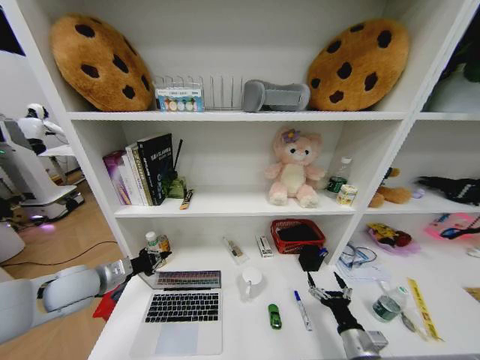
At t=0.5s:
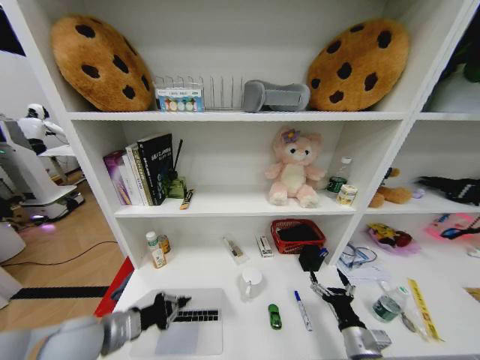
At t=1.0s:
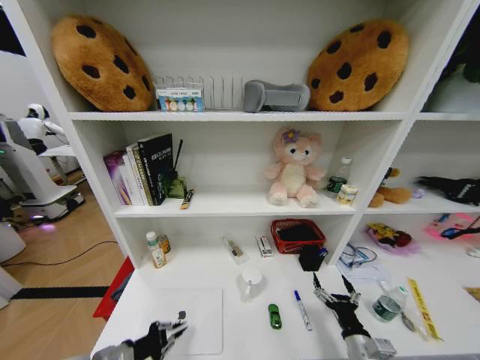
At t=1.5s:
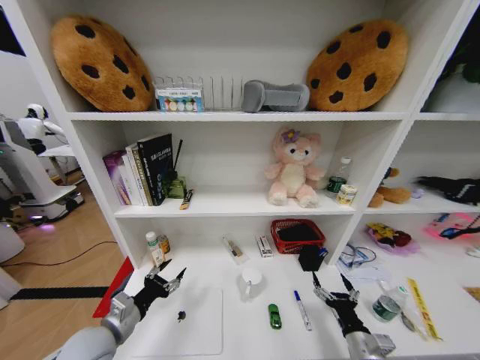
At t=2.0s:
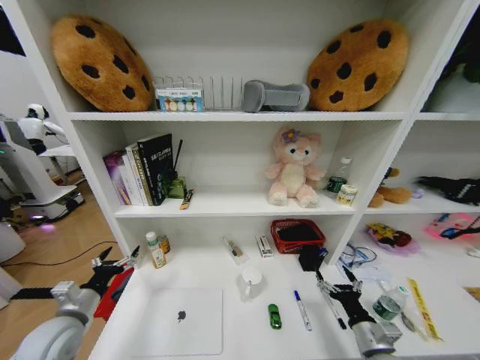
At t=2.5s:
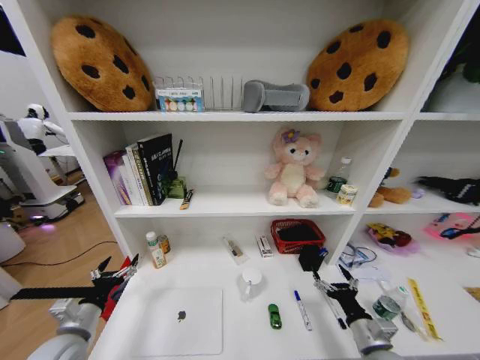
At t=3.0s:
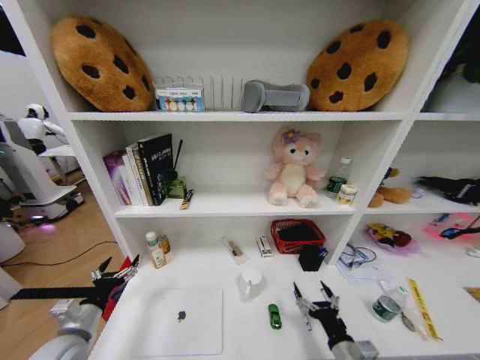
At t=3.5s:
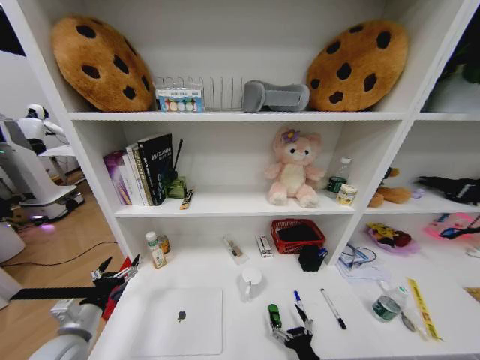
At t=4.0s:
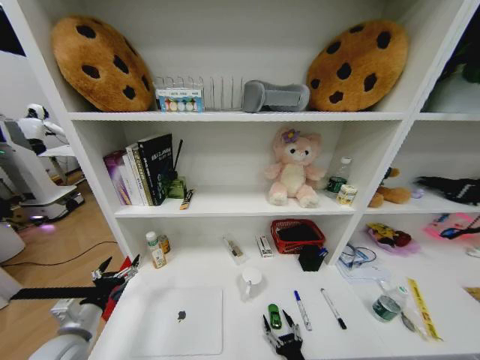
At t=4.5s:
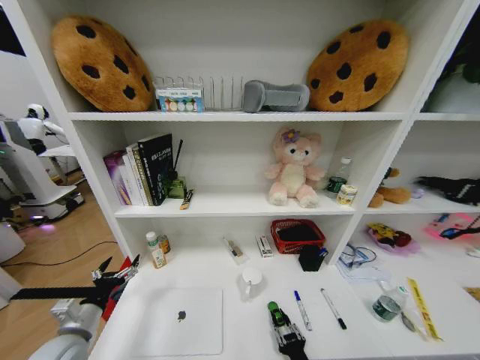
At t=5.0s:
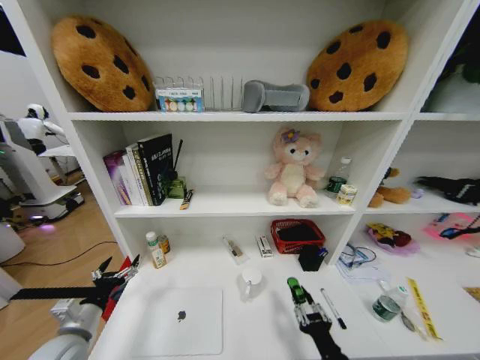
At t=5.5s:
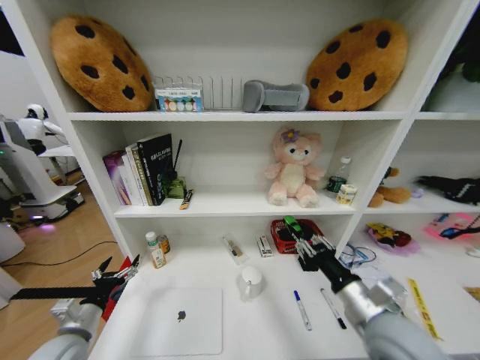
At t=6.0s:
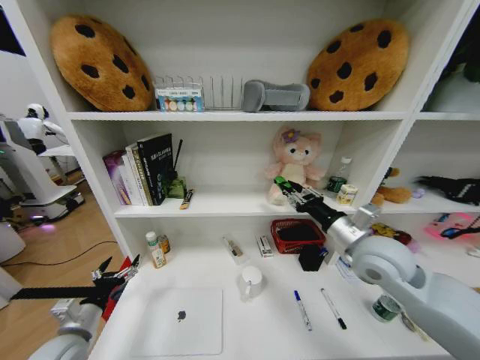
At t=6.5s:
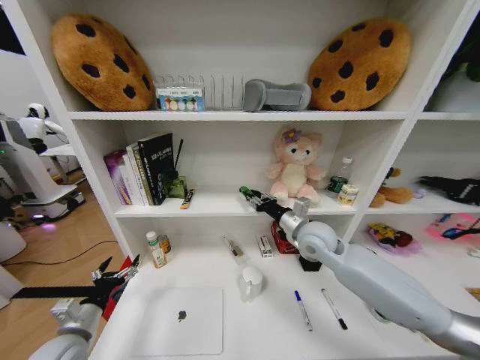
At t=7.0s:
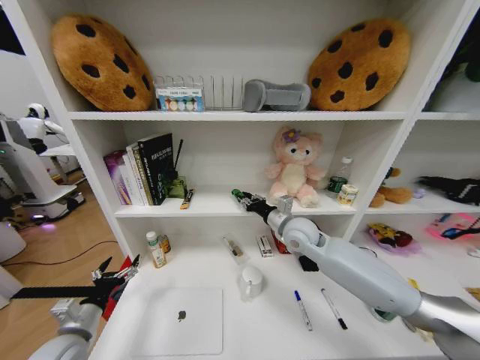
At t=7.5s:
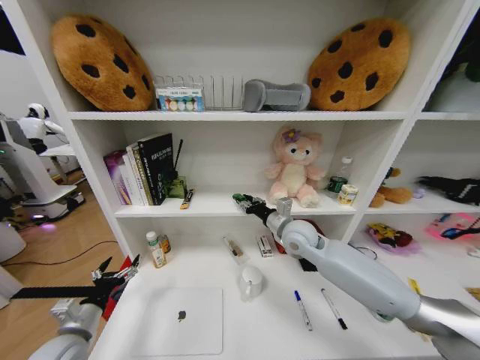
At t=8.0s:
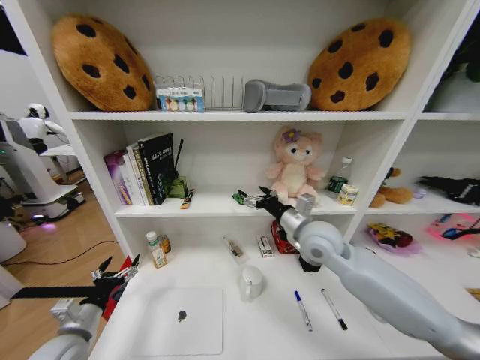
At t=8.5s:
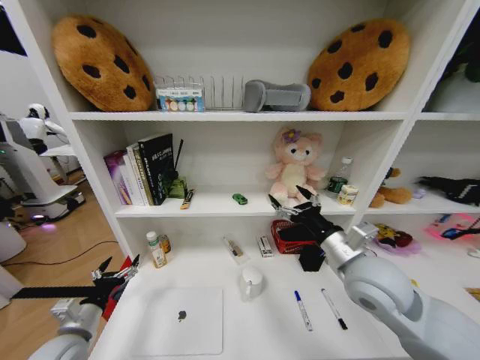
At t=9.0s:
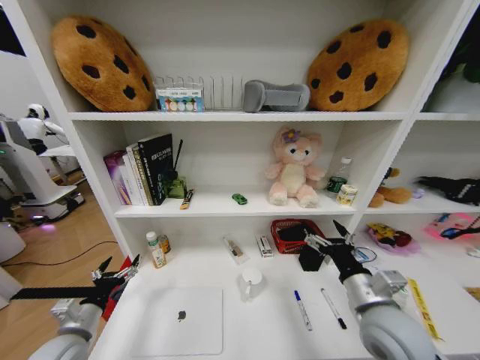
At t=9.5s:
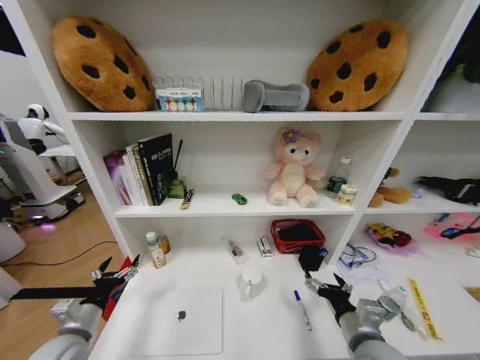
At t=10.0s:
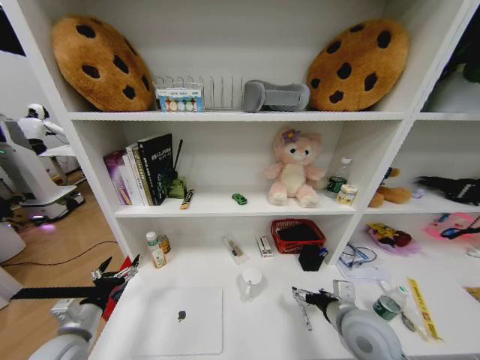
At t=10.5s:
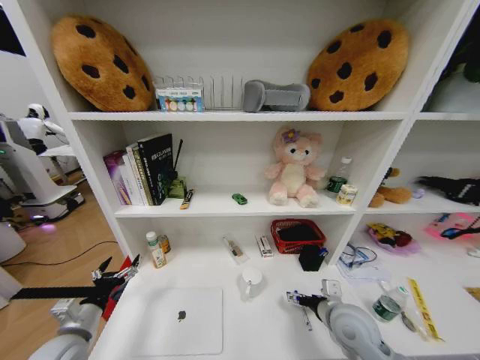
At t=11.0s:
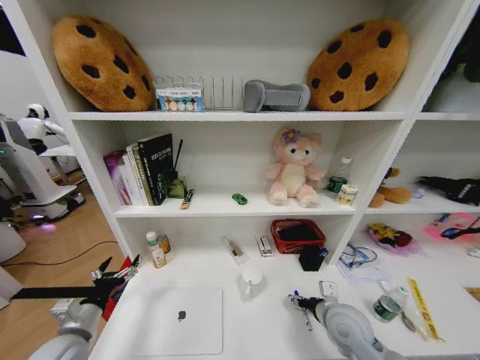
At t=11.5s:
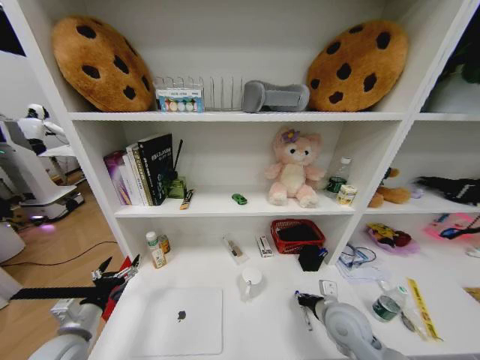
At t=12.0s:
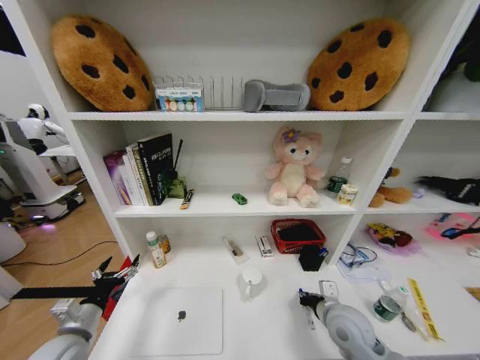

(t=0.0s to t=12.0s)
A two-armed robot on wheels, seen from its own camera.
Task of the whole recording: Organize the objects on the table.
t=0.0s - t=2.0s: The left gripper moves backward and downward, roughly 10 cm, and opens.
t=2.0s - t=4.0s: The right gripper heads to the left, downward and backward, covering about 20 cm.
t=4.0s - t=6.0s: The right gripper heads upward and forward, covering approximately 40 cm, and closes its fingers.
t=6.0s - t=8.0s: The right gripper is displaced to the left and forward by some 10 cm, and opens.
t=8.0s - t=10.0s: The right gripper moves backward, downward and to the right, some 20 cm.
t=10.0s - t=12.0s: The right gripper changes place by approximately 5 cm, and closes its fingers.

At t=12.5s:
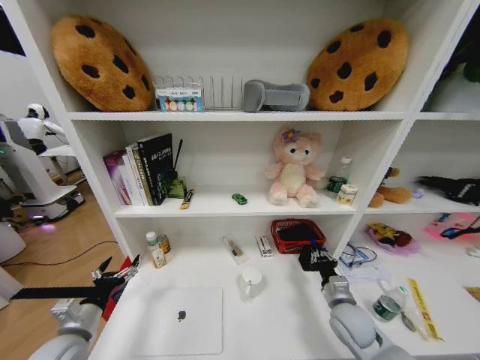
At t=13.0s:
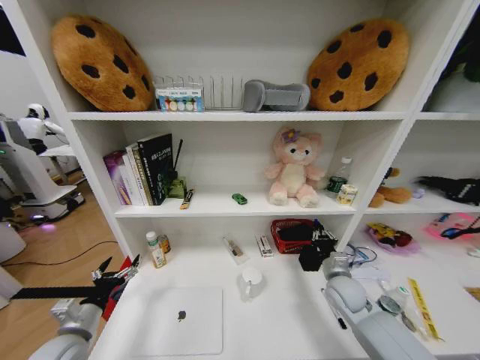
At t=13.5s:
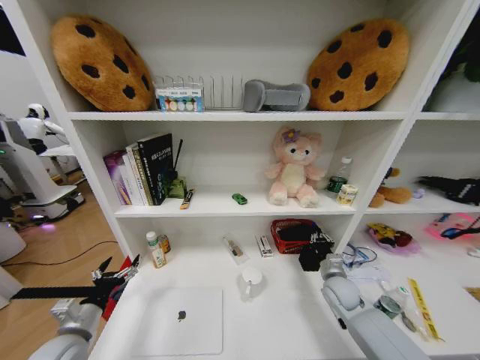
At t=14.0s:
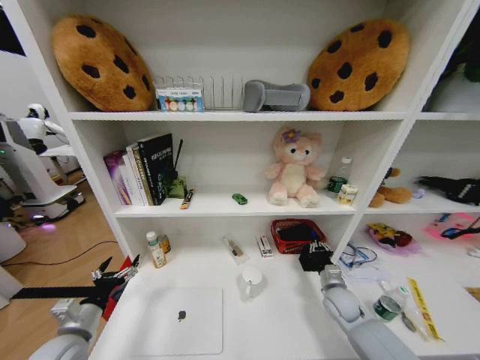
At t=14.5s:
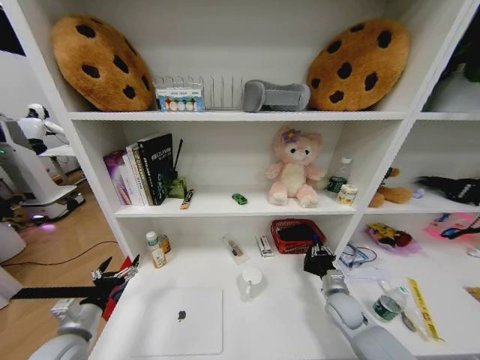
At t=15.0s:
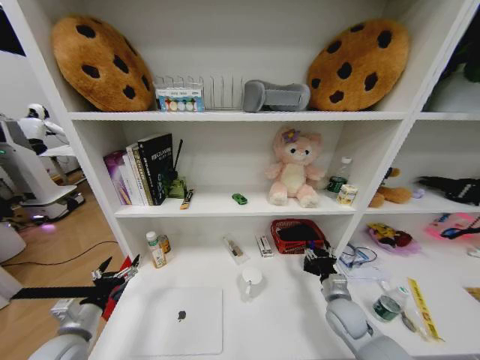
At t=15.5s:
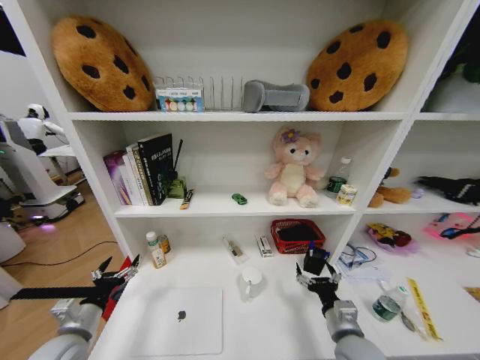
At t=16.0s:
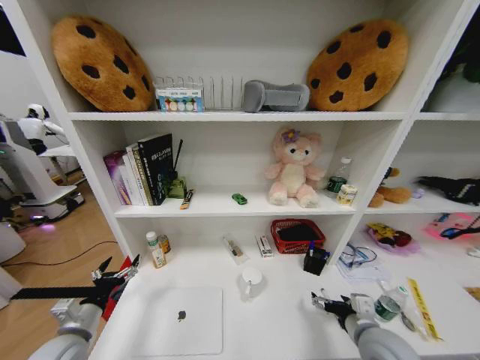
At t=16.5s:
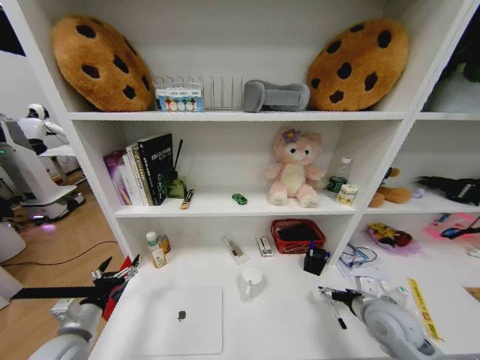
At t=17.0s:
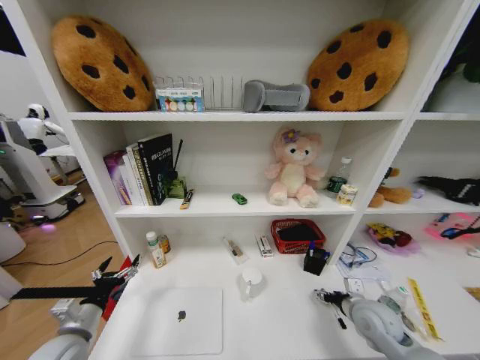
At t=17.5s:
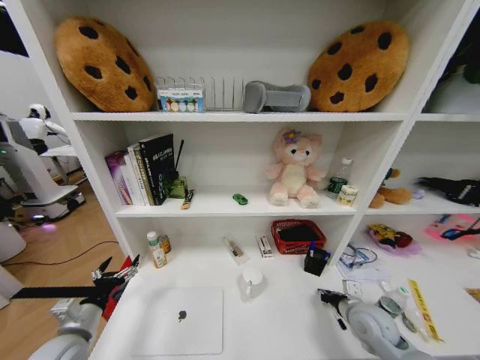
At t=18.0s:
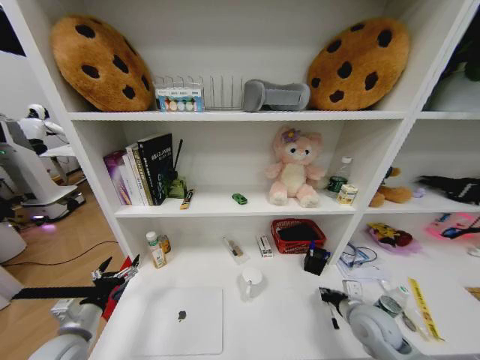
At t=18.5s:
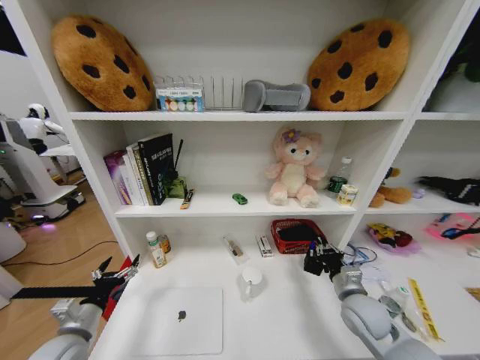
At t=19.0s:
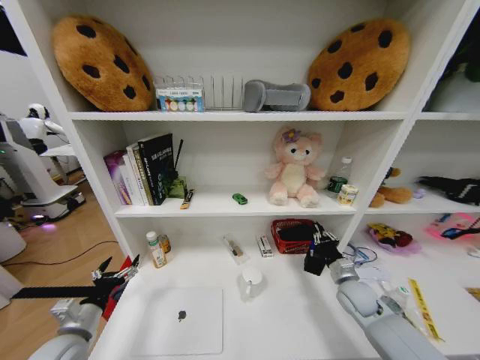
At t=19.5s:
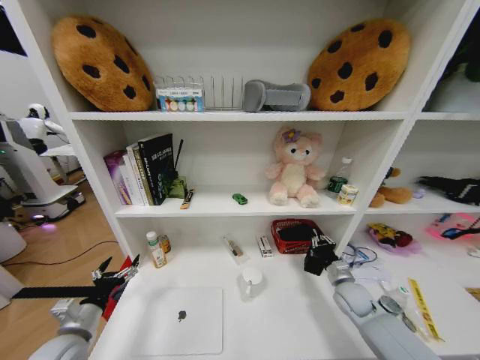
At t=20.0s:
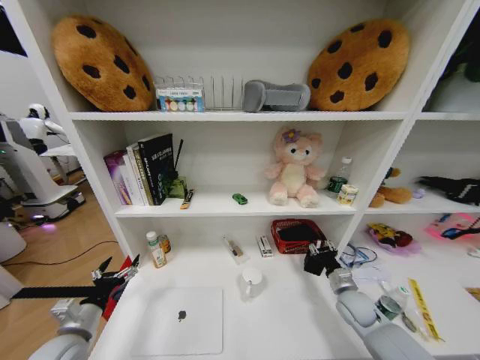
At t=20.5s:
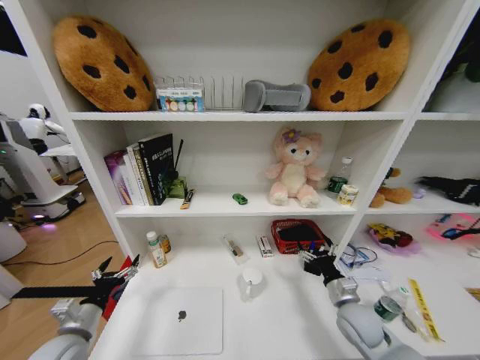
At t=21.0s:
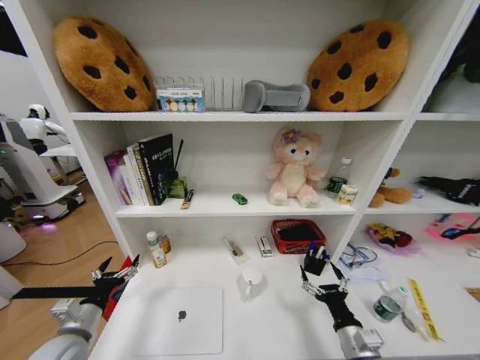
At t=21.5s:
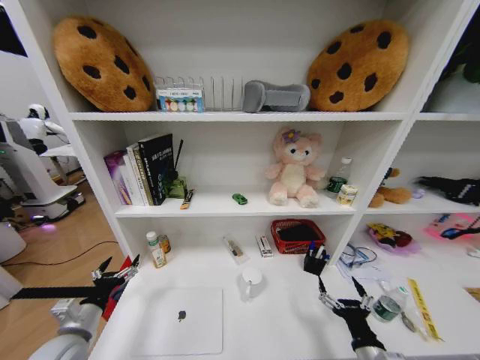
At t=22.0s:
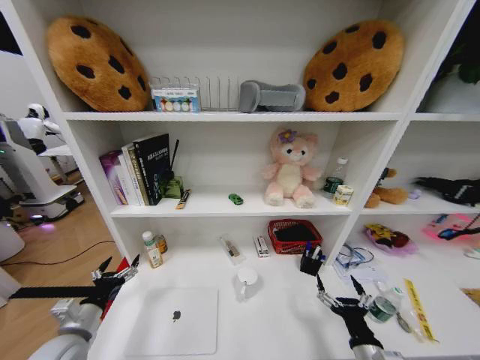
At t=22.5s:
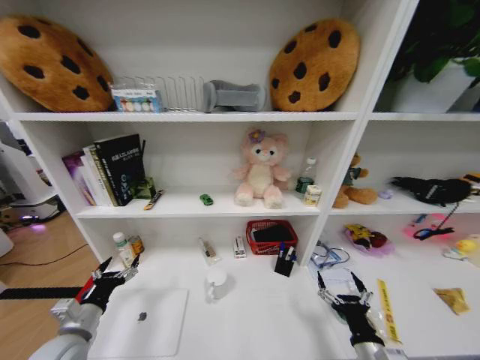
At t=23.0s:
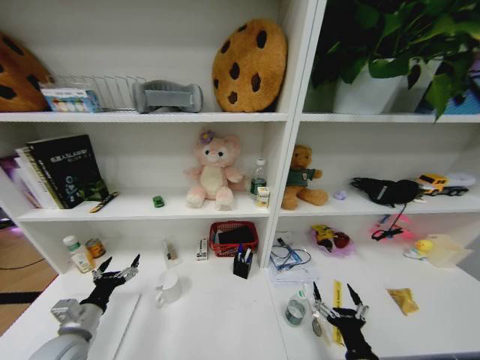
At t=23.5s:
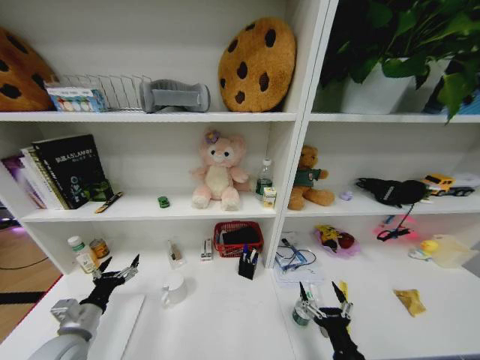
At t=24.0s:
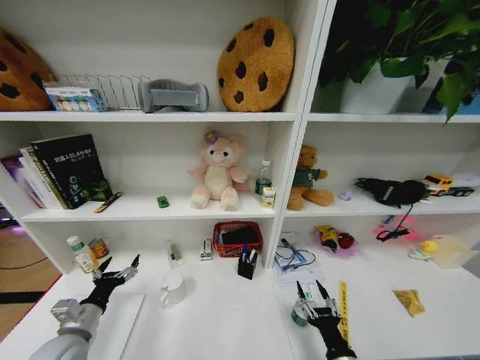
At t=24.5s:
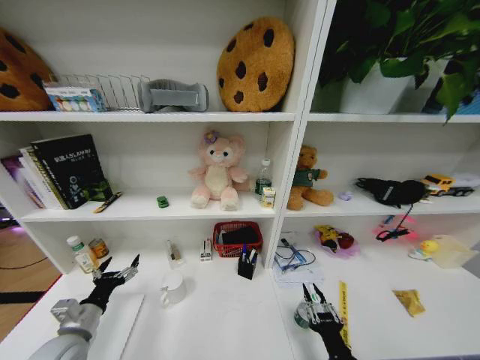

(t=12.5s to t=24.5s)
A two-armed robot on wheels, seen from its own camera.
Task of the whole recording: Organize the objects on the table.
t=12.5s - t=14.5s: The right gripper shifts approximately 5 cm downward.
t=14.5s - t=16.5s: The right gripper is displaced upward and backward by approximately 15 cm, and opens up.
t=16.5s - t=18.5s: The right gripper ends up about 5 cm from where it was, and closes its fingers.
t=18.5s - t=20.5s: The right gripper opens its fingers.
t=20.5s - t=22.5s: The right gripper travels backward by some 15 cm.
t=22.5s - t=24.5s: The right gripper travels to the left by roughly 5 cm, and closes.

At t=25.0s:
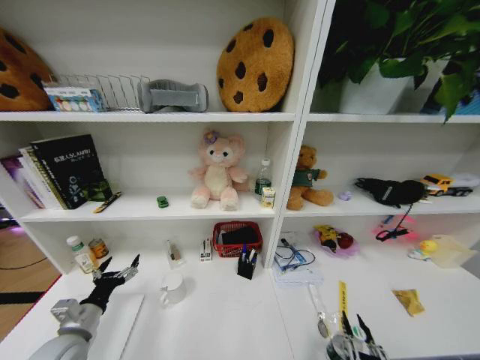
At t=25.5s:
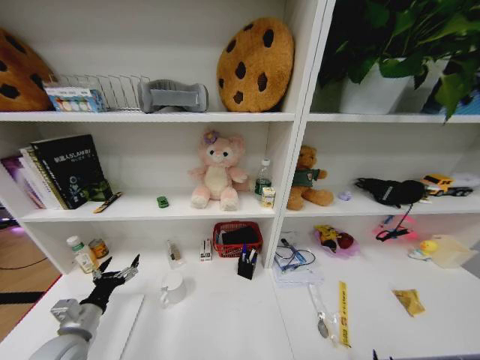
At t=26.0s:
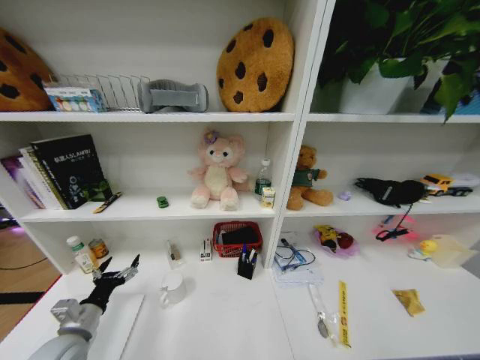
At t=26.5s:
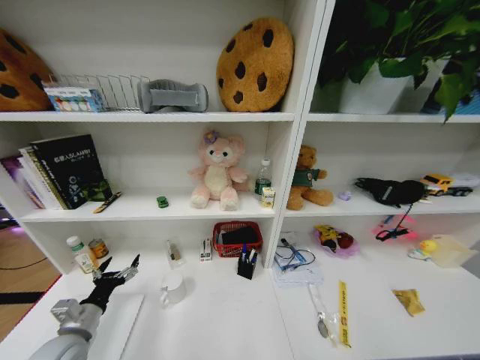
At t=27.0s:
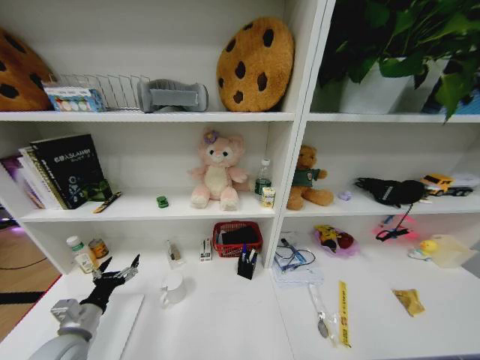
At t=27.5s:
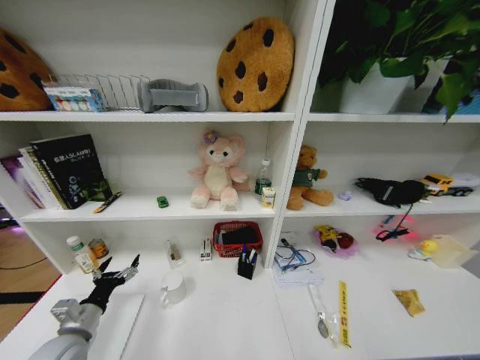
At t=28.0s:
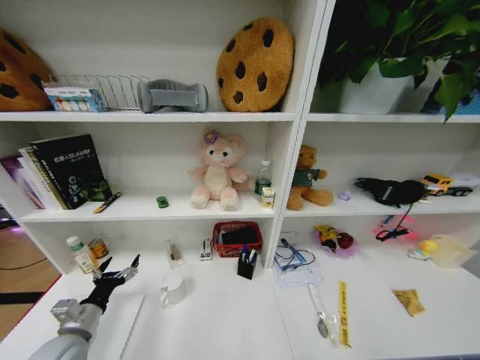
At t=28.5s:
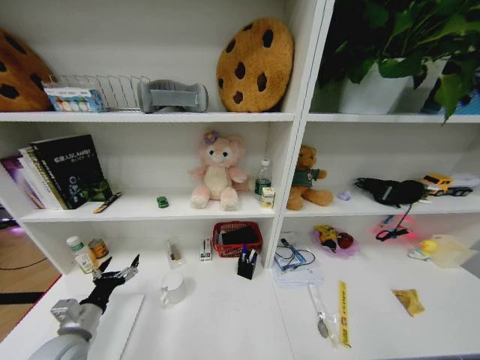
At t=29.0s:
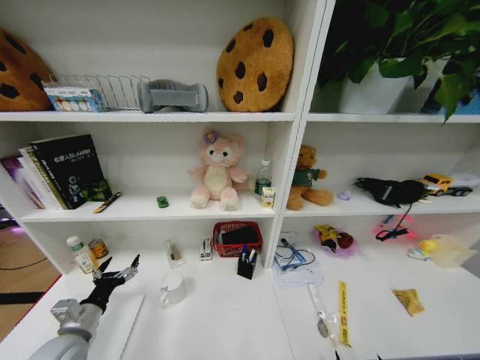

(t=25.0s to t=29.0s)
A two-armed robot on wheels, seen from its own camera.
Task of the whole recording: Organize the objects on the table.
t=25.0s - t=27.0s: The right gripper heads downward, covering roughly 35 cm.
